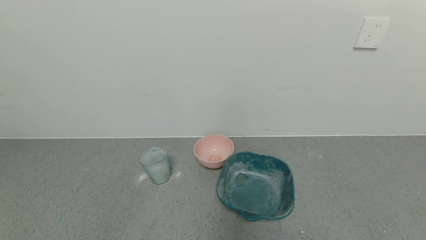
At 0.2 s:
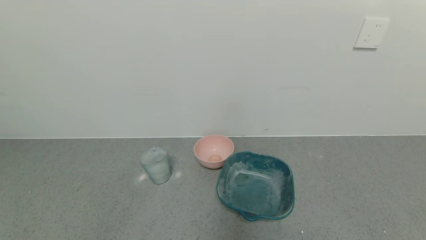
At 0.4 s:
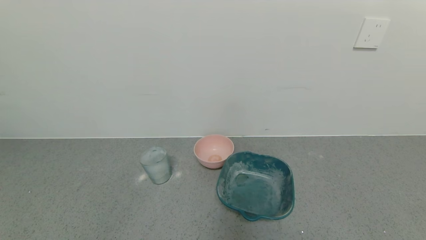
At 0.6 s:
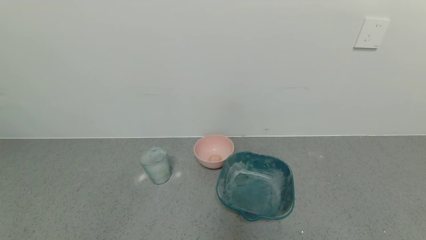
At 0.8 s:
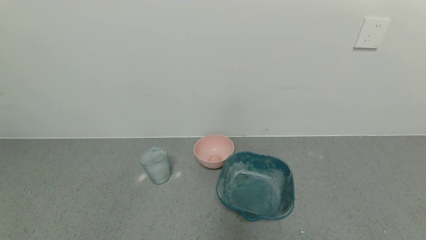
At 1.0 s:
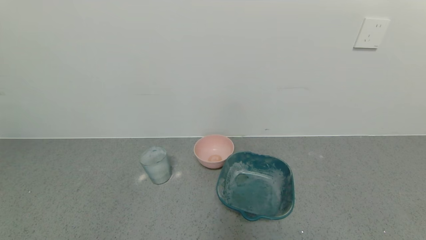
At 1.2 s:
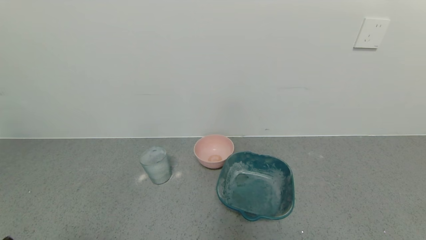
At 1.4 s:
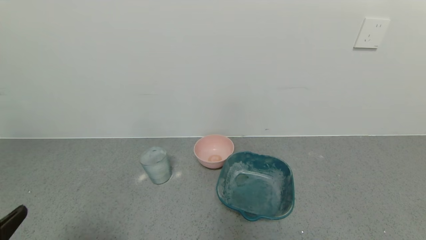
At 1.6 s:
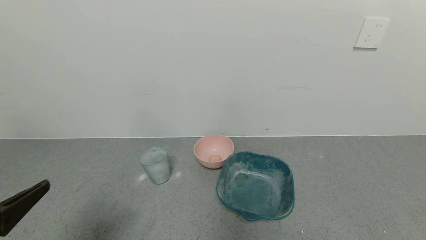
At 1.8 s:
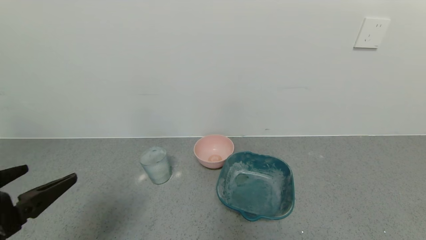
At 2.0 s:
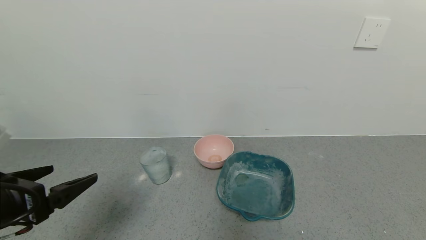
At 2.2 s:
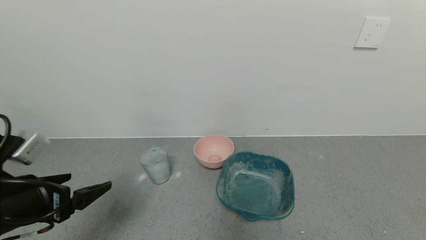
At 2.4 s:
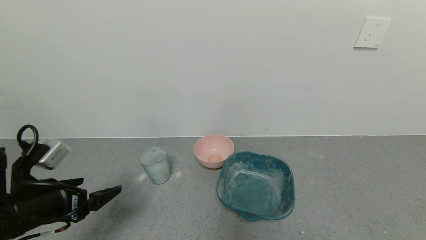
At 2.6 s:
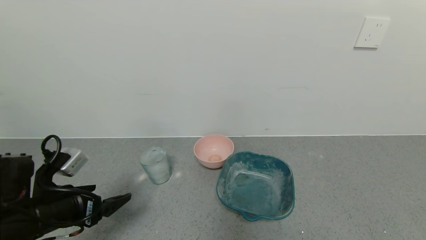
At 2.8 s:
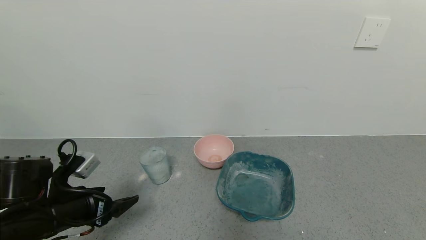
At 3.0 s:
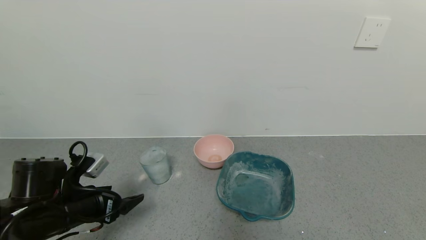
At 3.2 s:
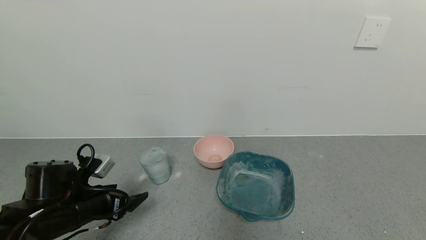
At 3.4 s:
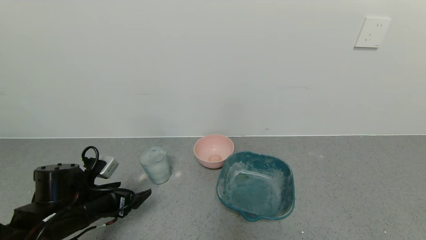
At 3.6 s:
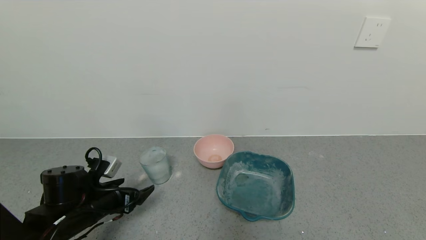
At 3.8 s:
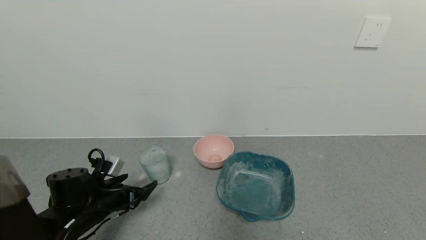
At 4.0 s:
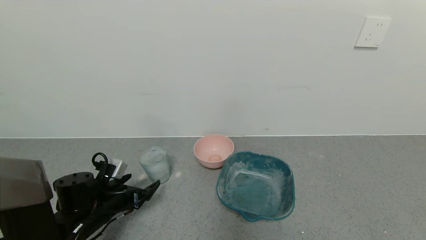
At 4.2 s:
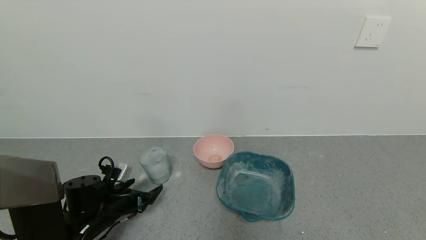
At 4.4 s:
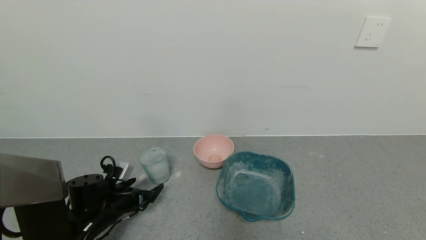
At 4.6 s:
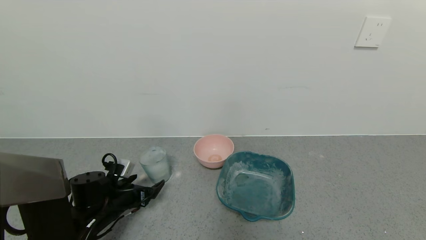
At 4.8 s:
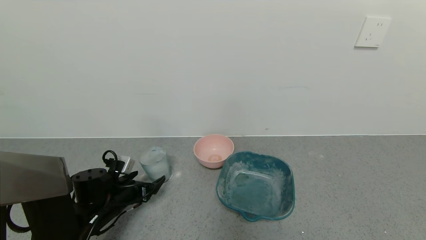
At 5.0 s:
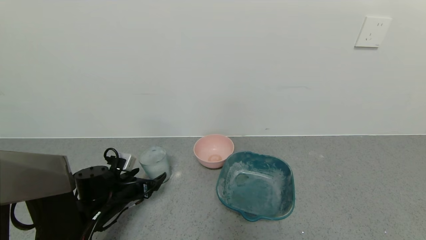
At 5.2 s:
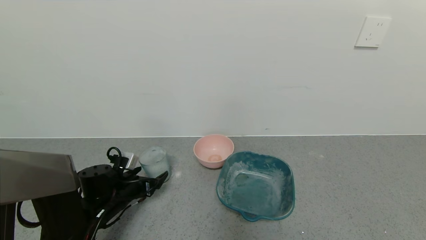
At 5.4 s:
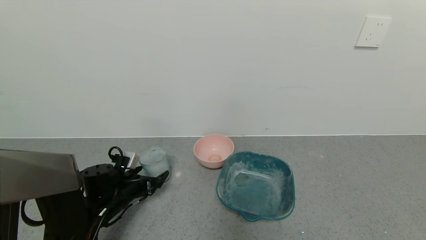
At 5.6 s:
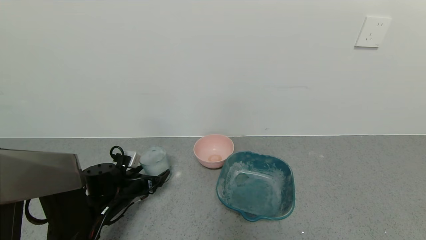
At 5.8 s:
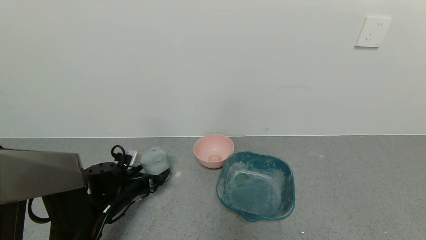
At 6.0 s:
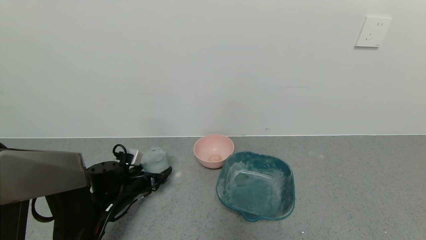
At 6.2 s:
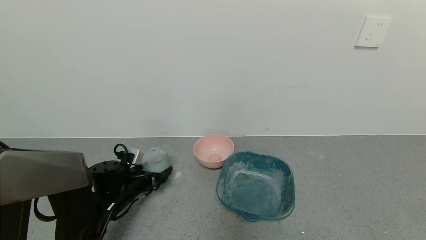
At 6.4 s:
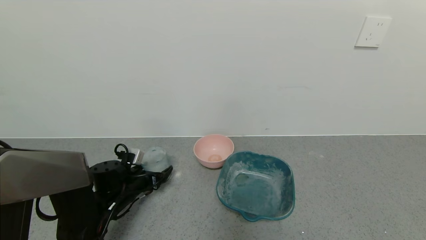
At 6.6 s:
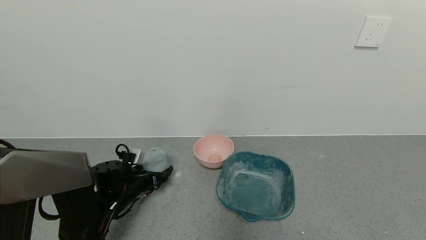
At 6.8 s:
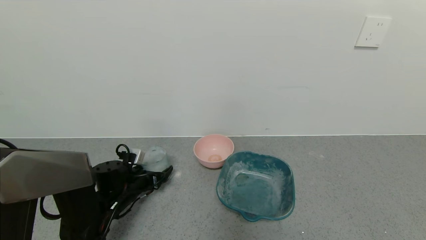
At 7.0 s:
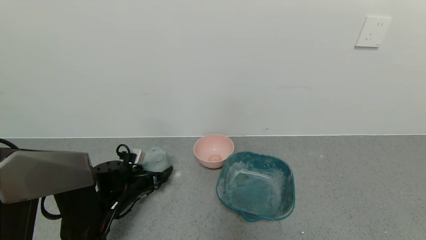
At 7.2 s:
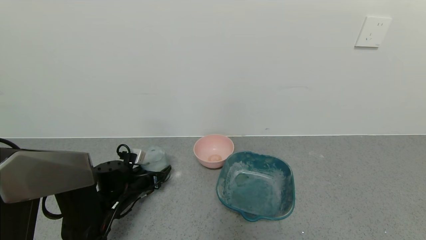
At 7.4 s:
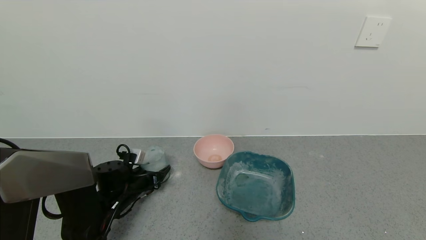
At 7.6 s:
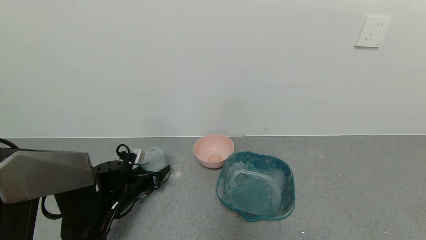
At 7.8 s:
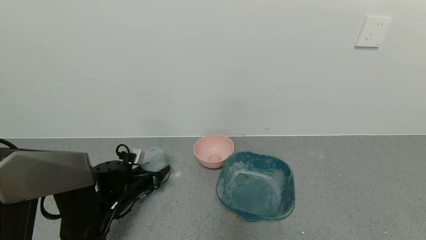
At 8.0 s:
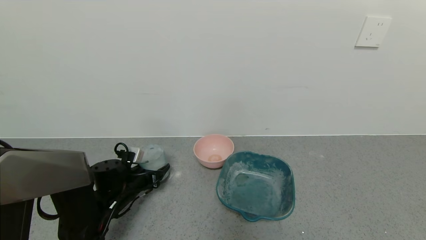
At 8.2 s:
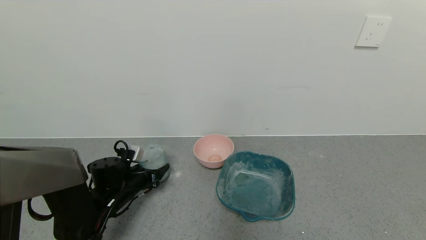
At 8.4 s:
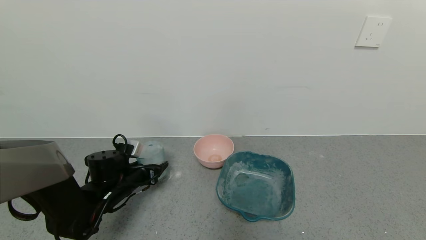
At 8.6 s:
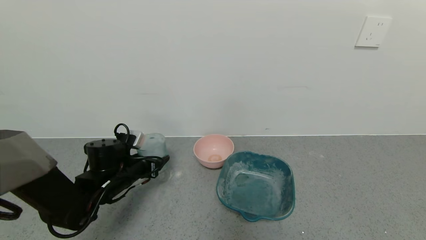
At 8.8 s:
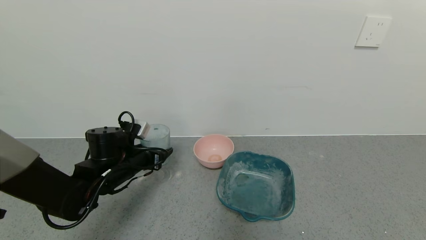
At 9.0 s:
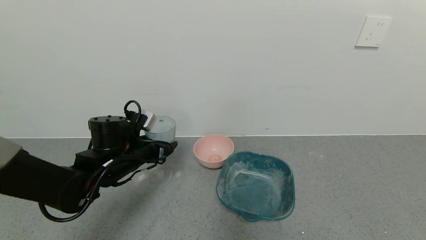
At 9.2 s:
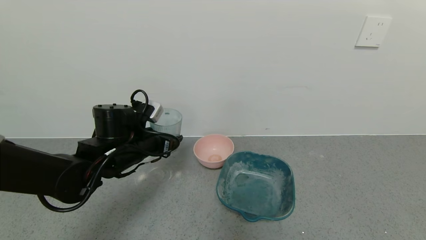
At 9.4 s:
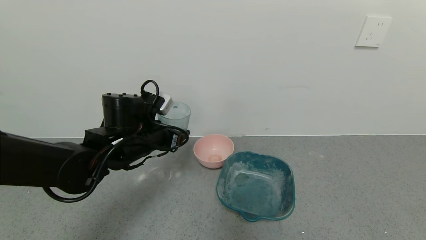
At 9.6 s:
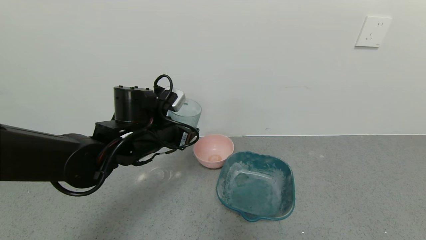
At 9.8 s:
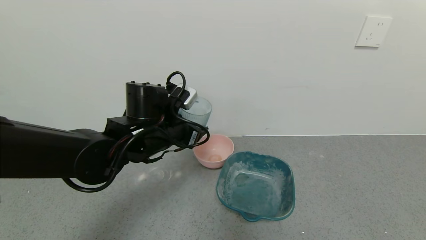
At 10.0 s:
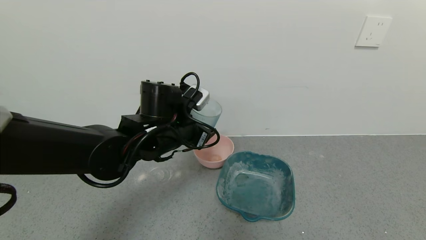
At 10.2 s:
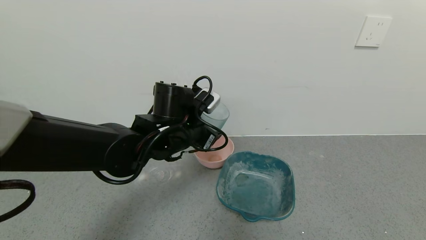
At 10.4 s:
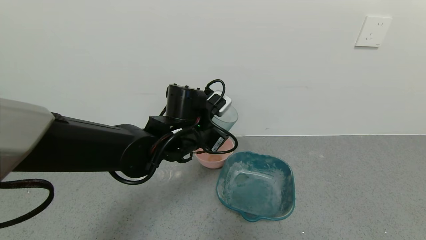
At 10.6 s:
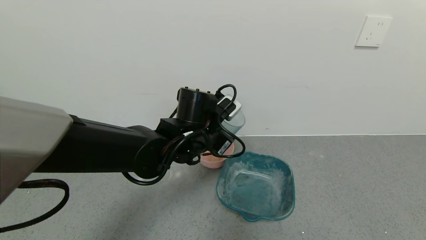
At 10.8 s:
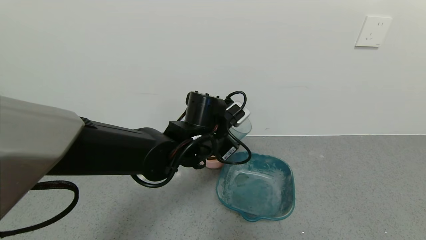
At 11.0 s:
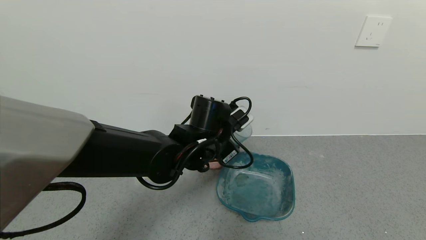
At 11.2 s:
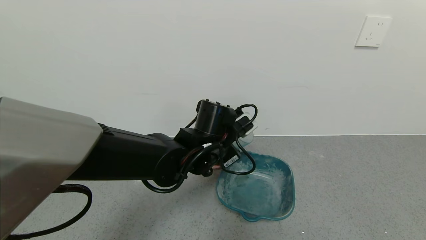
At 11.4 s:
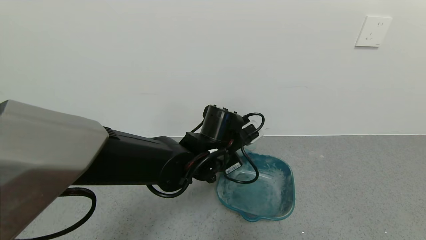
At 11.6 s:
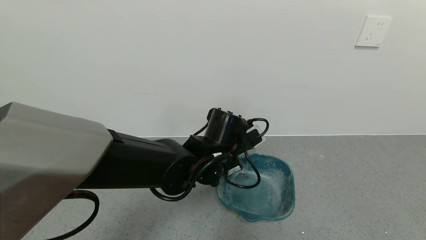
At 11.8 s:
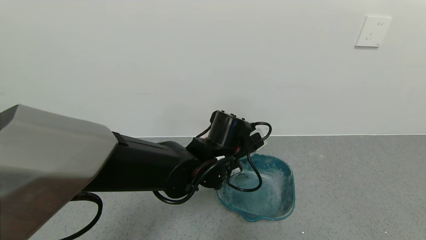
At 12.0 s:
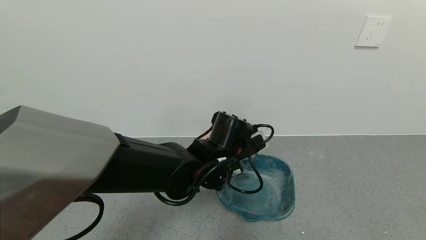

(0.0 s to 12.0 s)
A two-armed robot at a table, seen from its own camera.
Task of the whole recording: use a gripper to pick up the cup and pour the powder into a bowl or tray.
Step, 0.0 s - 7.2 s: Grasp the glass of powder with the left gripper.
0.0 s - 1.6 s: The left gripper goes roughly 20 cm upward and forward.
1.6 s - 3.0 s: The left gripper shifts some 20 cm forward and downward.
3.0 s - 4.4 s: The left gripper shifts about 10 cm downward and forward.
4.4 s - 6.0 s: The left gripper shifts some 5 cm forward.
6.0 s - 7.6 s: The left gripper closes up.
7.6 s - 9.0 s: The left gripper shifts approximately 15 cm upward.
9.0 s - 10.4 s: The left gripper travels to the right by roughly 15 cm.
10.4 s - 12.0 s: The left gripper is displaced to the right by about 5 cm.

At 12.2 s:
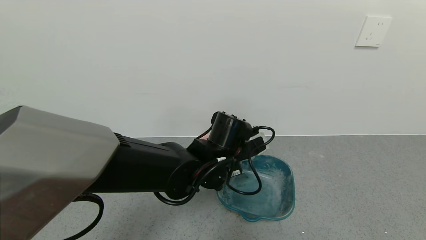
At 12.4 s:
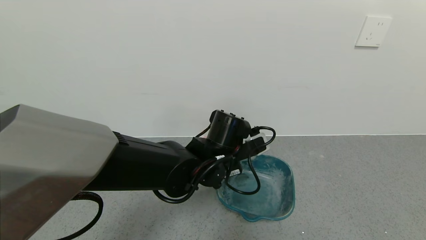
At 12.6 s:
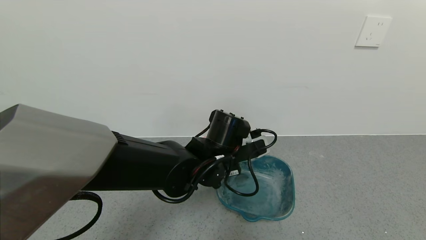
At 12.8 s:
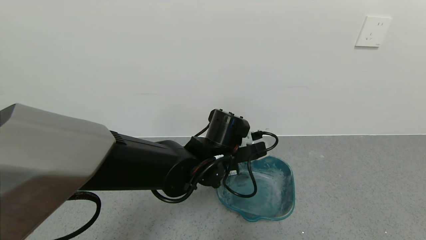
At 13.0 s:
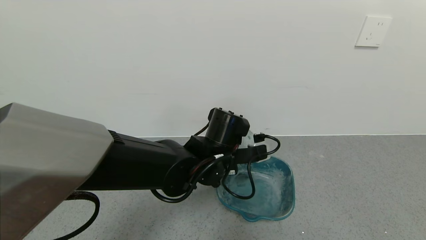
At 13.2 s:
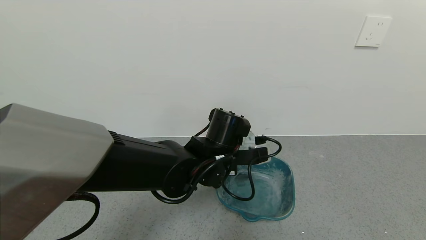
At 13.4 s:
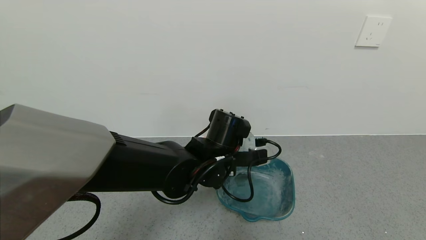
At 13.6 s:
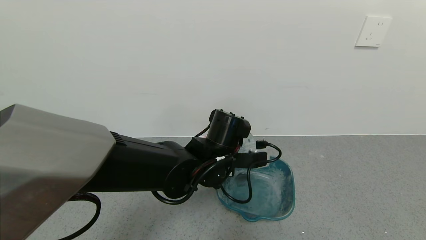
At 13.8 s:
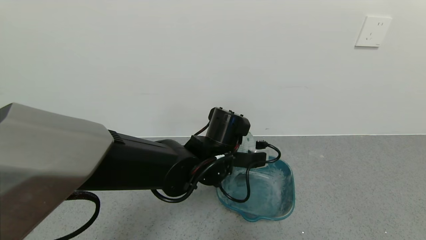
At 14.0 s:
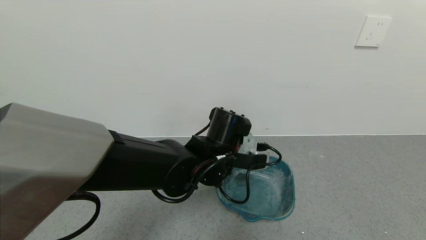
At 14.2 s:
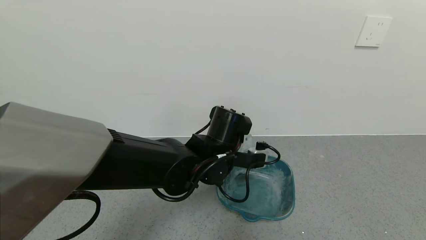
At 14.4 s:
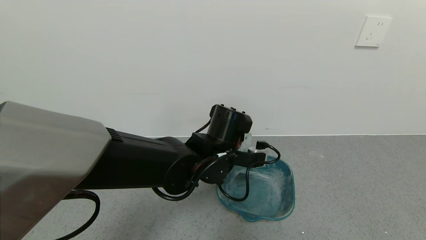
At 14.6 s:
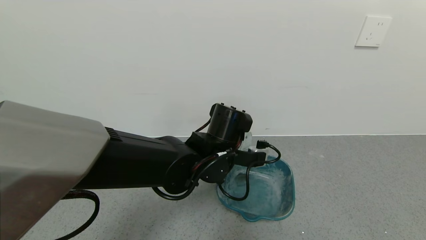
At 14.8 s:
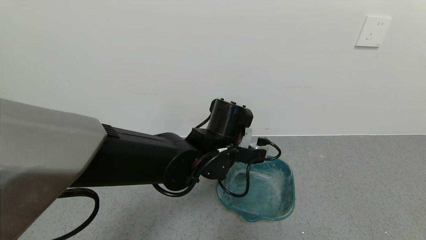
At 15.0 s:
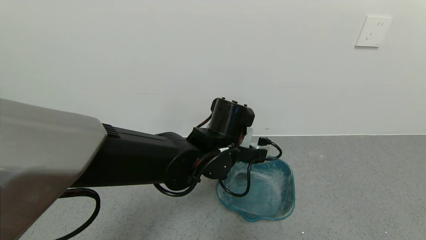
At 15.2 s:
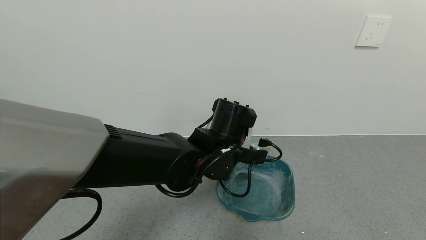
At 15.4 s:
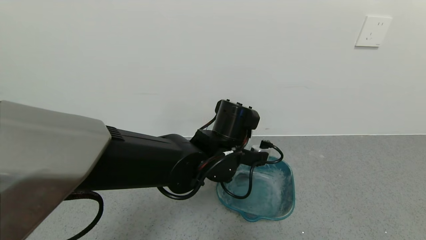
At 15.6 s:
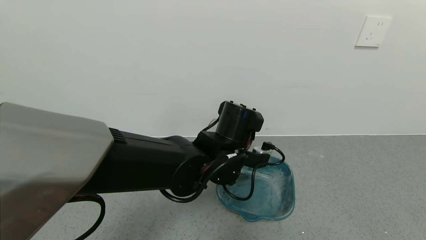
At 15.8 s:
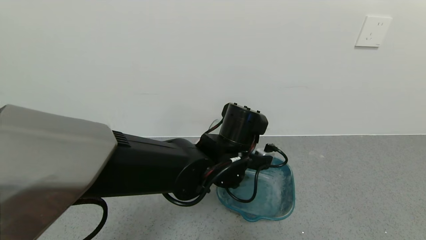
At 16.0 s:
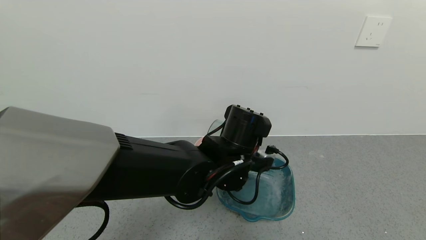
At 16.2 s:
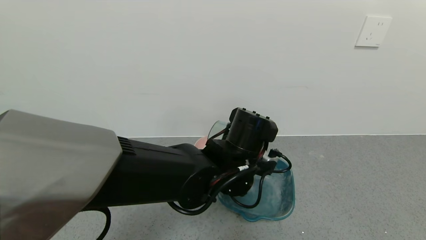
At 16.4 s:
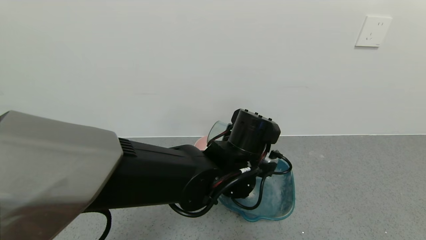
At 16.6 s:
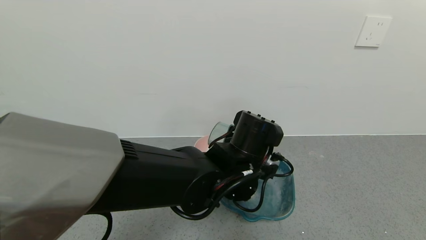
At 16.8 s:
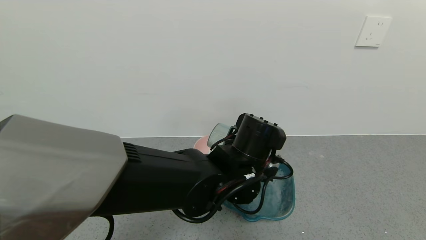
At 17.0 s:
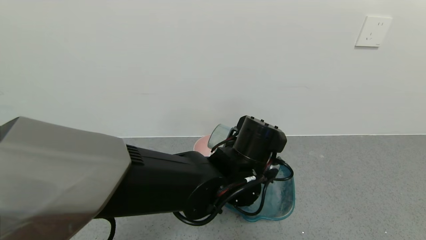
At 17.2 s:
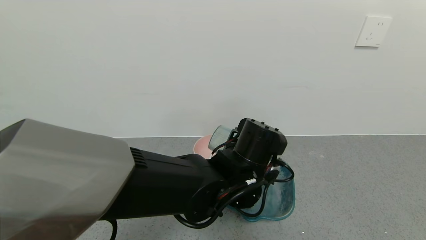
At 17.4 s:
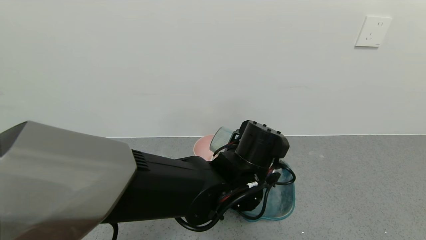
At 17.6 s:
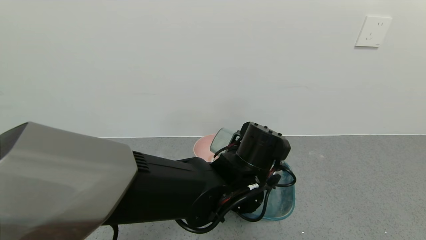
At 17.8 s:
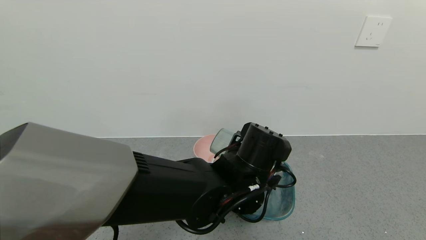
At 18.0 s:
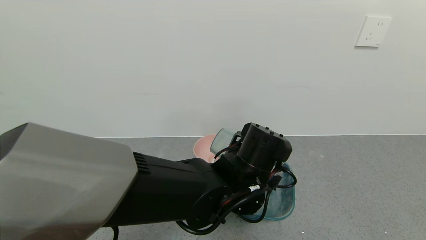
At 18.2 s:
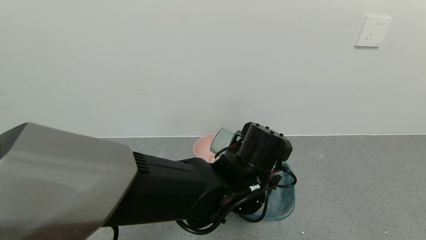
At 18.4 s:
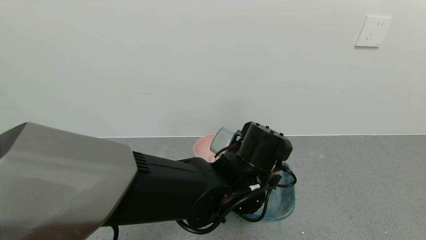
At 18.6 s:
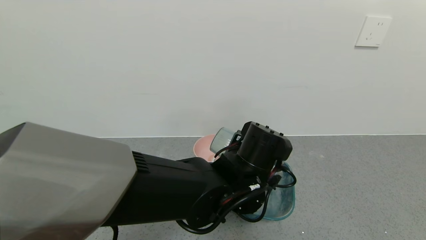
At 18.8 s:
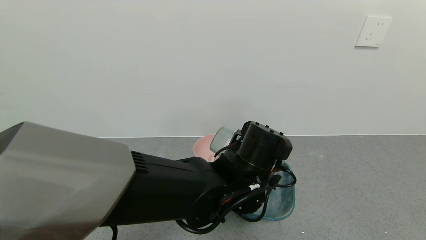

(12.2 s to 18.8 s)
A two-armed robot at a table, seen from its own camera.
Task of the whole recording: use a gripper to pick up the cup and pour the powder into a bowl or tray.
13.8 s - 15.4 s: There are only small adjustments of the grippers.
17.2 s - 18.8 s: Neither gripper changes place.
